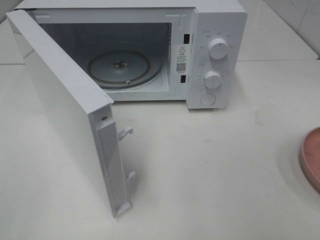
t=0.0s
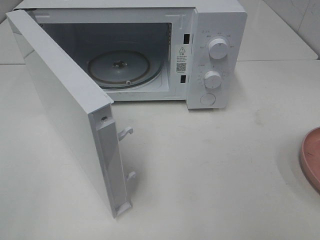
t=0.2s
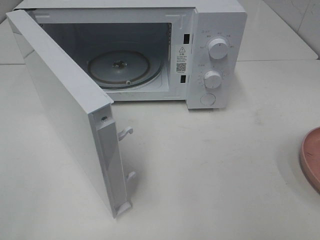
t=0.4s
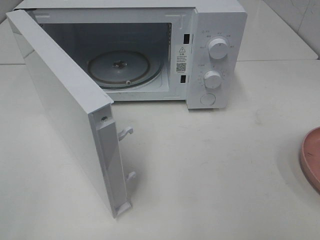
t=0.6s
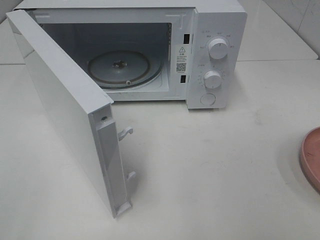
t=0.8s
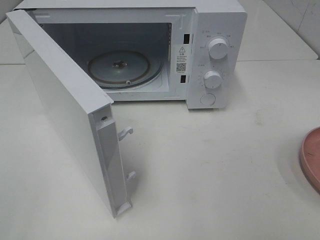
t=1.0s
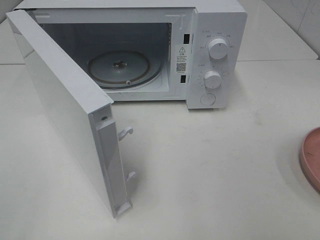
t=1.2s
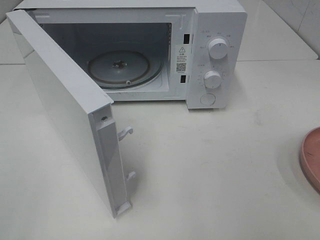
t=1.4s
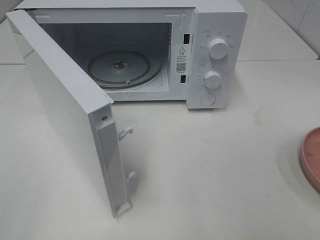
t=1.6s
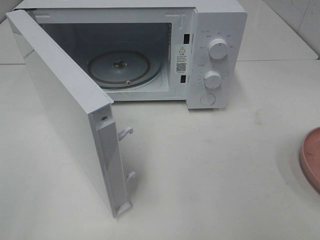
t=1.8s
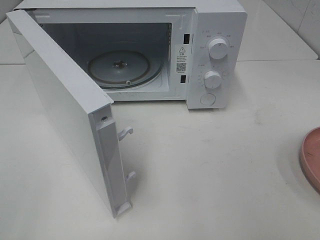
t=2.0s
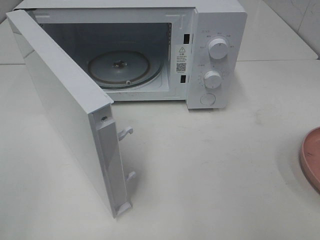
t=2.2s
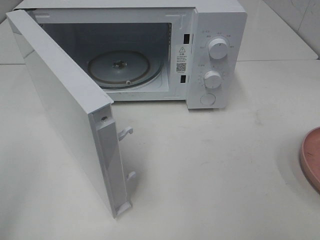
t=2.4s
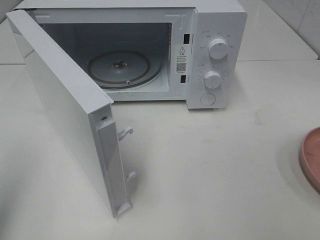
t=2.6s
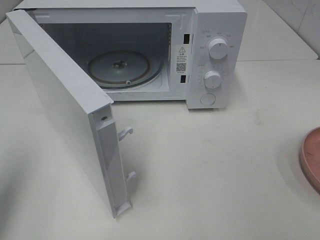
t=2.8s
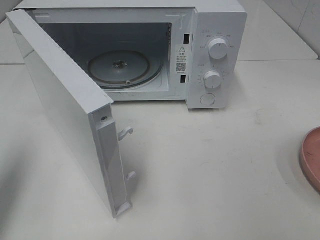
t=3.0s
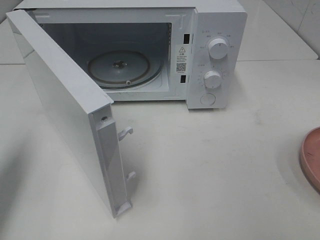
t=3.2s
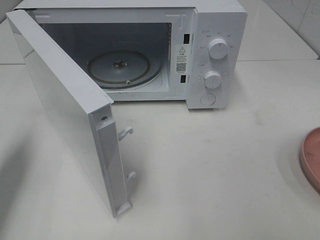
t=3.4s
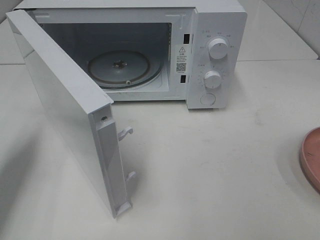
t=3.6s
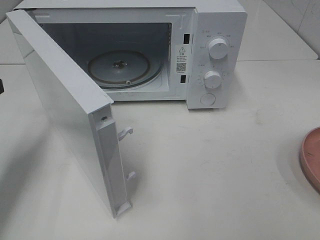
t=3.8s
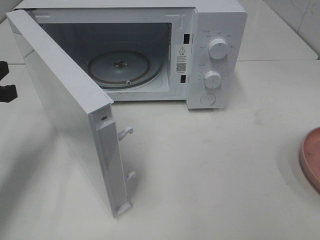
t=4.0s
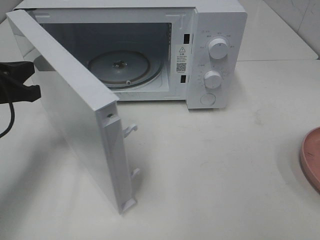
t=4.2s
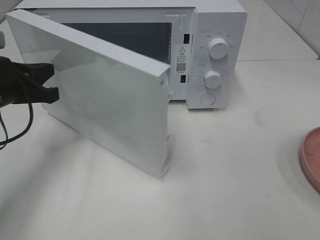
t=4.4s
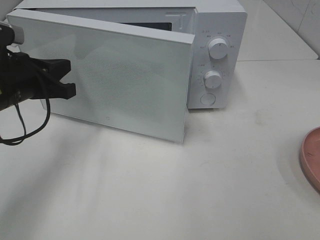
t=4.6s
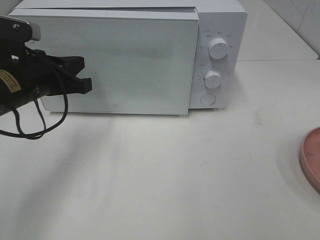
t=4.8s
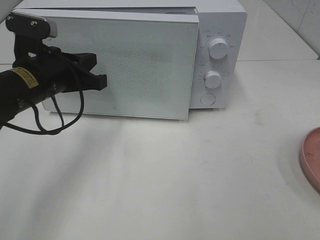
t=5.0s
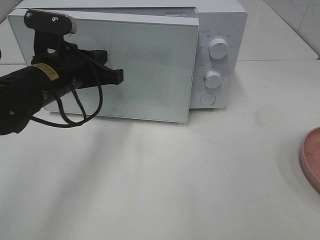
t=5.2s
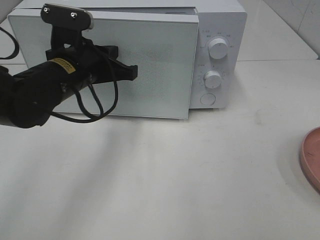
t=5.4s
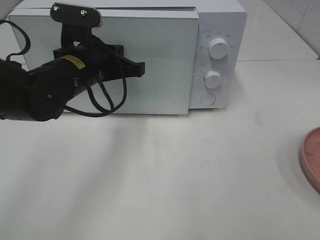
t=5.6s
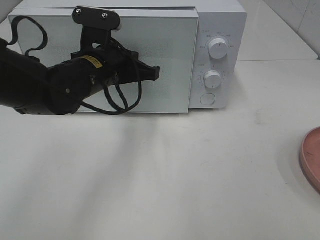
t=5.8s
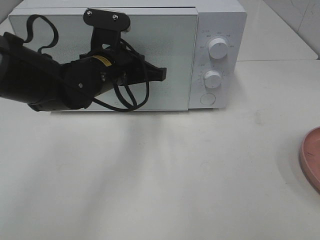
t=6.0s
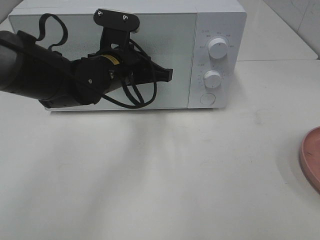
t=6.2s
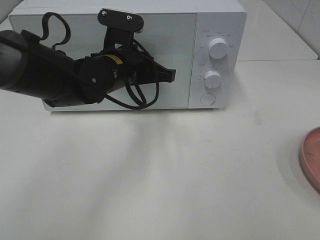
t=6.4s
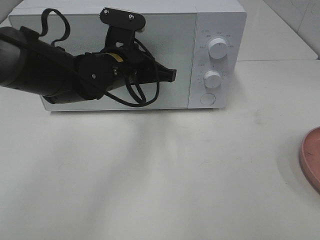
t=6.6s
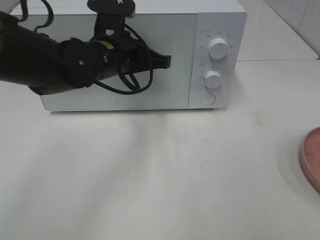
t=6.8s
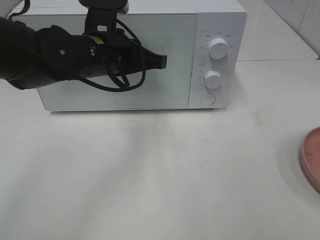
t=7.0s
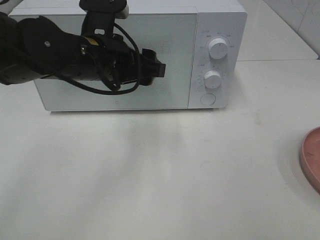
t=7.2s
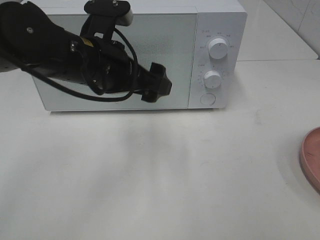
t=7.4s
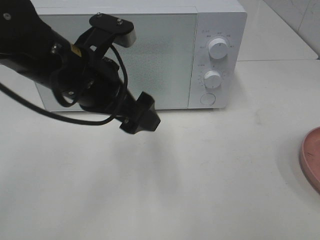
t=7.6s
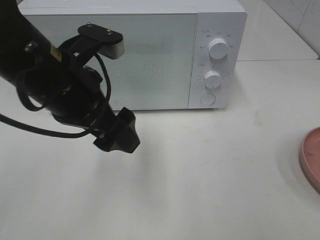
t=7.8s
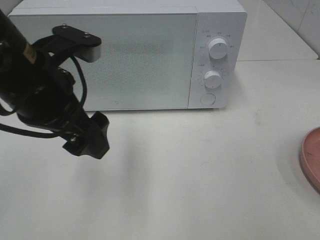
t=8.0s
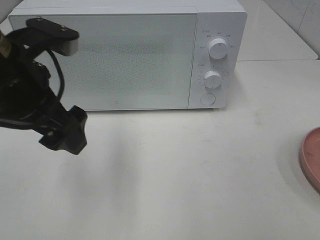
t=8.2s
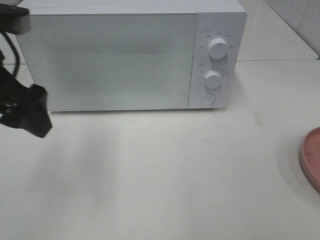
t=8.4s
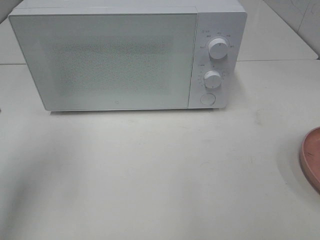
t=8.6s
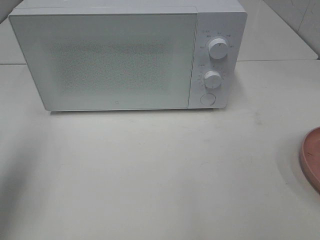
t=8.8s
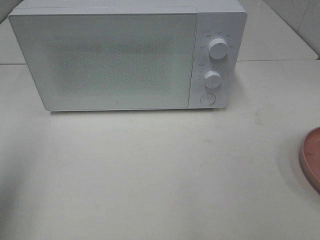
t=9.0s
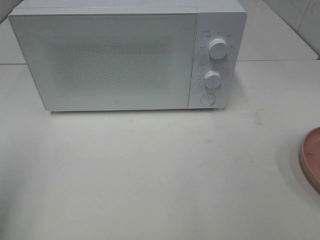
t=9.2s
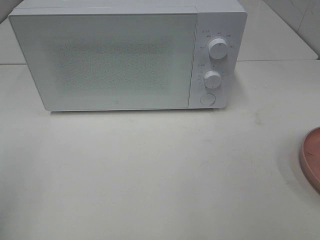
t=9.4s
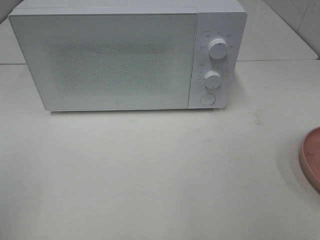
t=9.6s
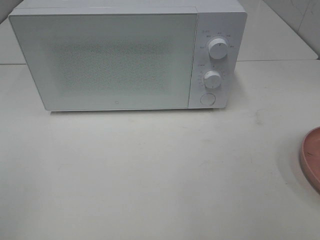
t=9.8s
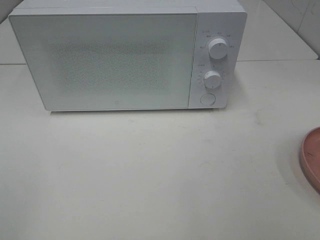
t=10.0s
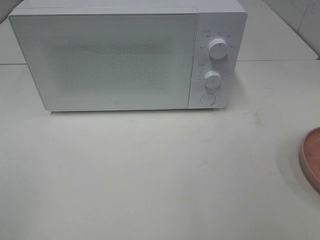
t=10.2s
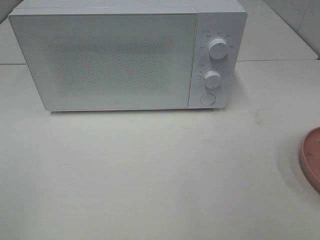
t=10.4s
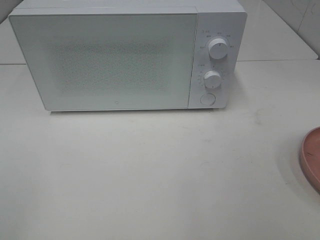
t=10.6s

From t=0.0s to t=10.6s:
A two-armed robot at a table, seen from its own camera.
Task of the whole recording: Heat the burger.
Step, from t=0.0s to t=7.0s: Left hand: close the microwave door.
From t=0.0s to t=1.6s: Neither gripper changes place.
From t=1.6s to t=3.0s: The left gripper is displaced forward by roughly 15 cm, and closes.
From t=3.0s to t=4.6s: The left gripper is displaced forward, to the right and downward by roughly 20 cm.
From t=4.6s to t=6.0s: The left gripper moves to the right, approximately 15 cm.
From t=6.0s to t=7.6s: The left gripper shifts about 10 cm backward and upward, and opens its fingers.
From t=7.6s to t=9.0s: The left gripper travels to the left and backward by approximately 25 cm.
From t=9.0s to t=10.6s: The left gripper moves backward, about 15 cm.
